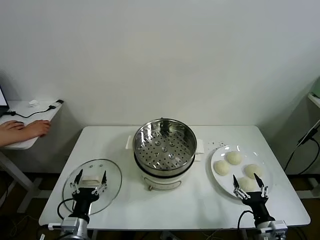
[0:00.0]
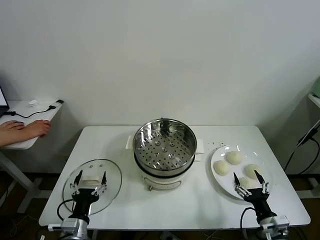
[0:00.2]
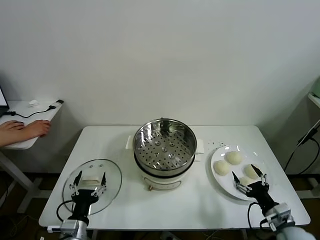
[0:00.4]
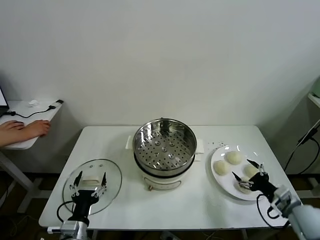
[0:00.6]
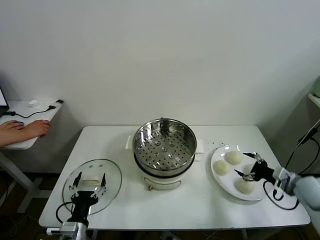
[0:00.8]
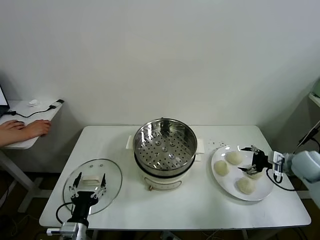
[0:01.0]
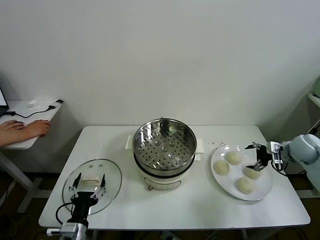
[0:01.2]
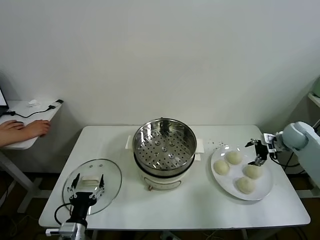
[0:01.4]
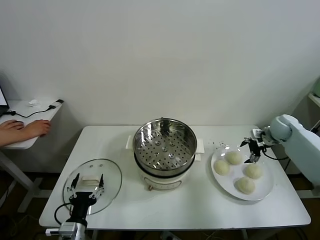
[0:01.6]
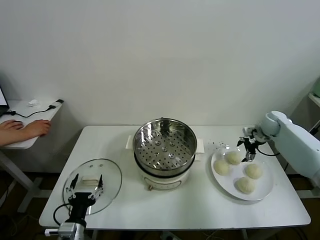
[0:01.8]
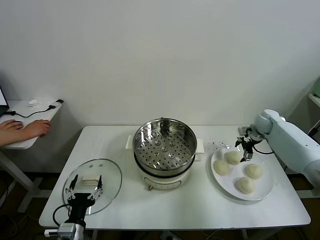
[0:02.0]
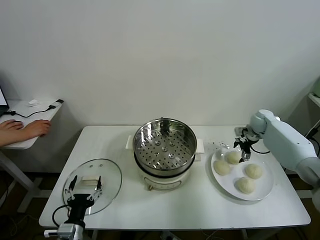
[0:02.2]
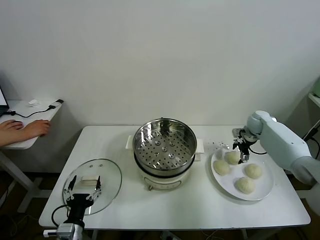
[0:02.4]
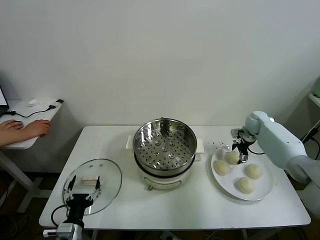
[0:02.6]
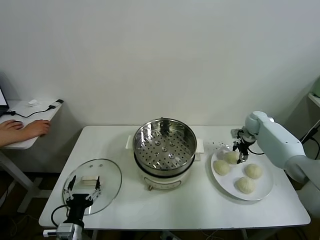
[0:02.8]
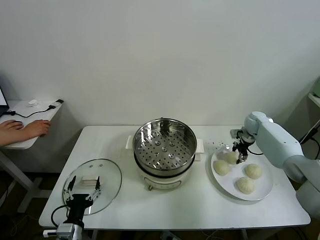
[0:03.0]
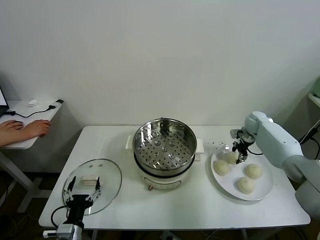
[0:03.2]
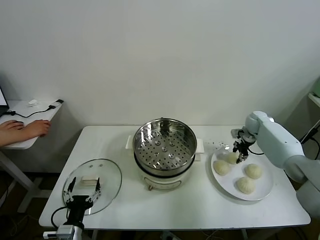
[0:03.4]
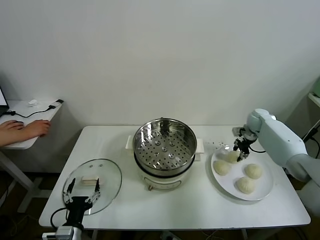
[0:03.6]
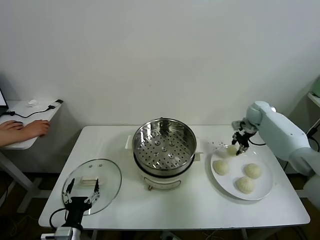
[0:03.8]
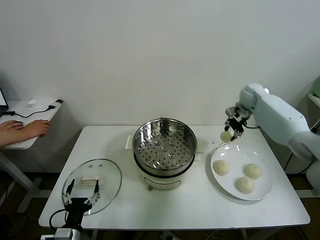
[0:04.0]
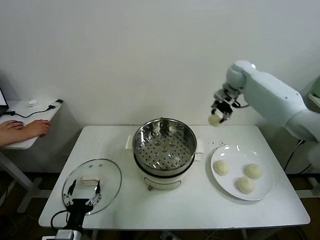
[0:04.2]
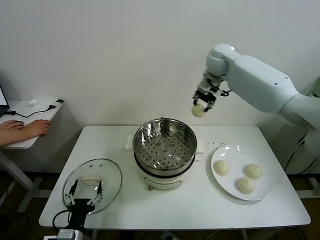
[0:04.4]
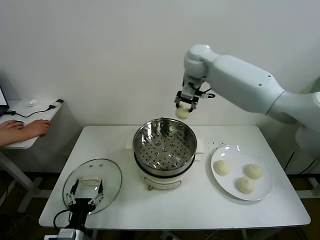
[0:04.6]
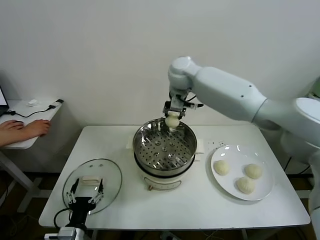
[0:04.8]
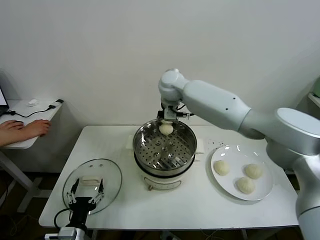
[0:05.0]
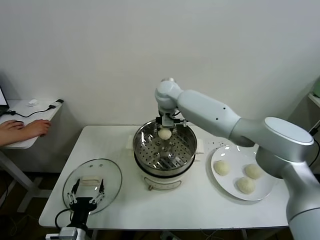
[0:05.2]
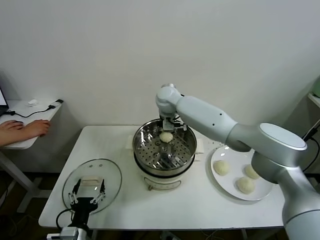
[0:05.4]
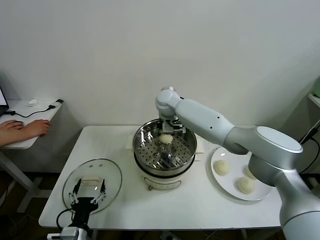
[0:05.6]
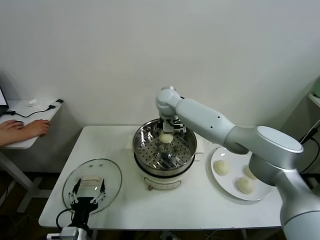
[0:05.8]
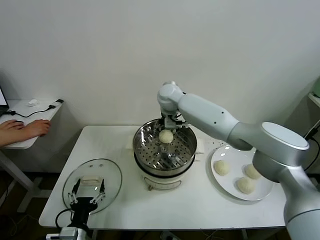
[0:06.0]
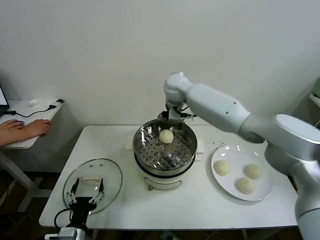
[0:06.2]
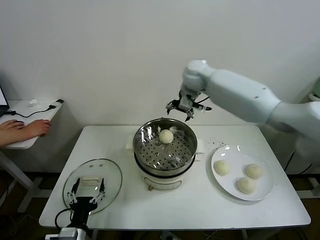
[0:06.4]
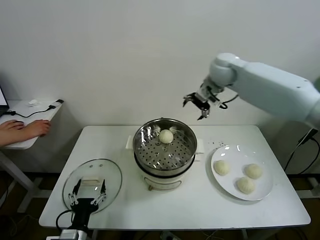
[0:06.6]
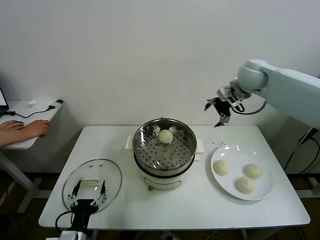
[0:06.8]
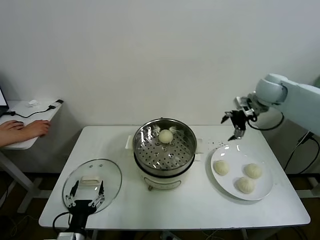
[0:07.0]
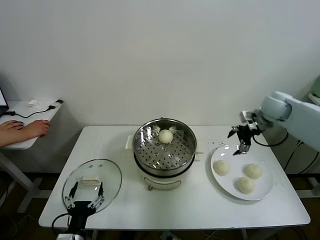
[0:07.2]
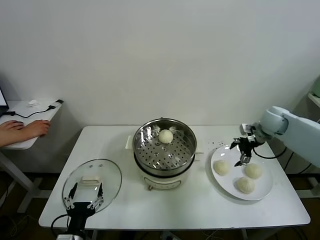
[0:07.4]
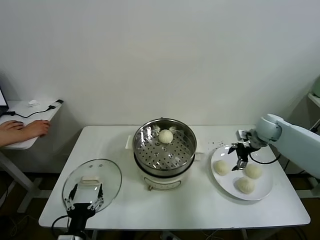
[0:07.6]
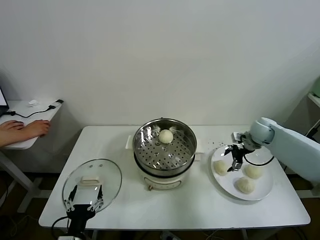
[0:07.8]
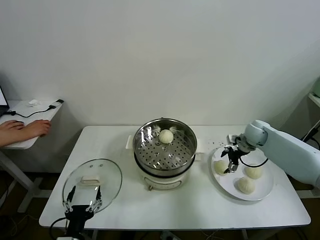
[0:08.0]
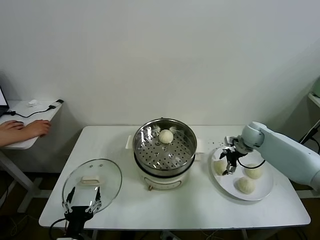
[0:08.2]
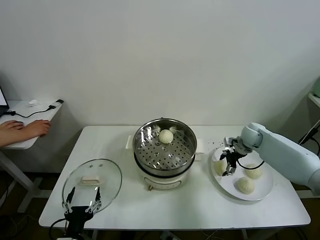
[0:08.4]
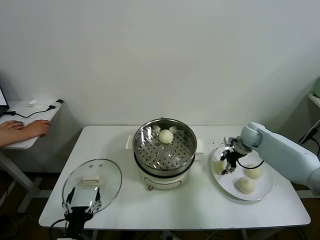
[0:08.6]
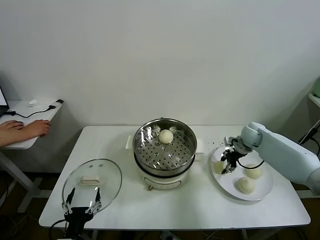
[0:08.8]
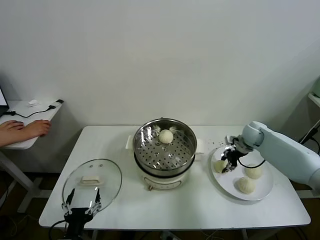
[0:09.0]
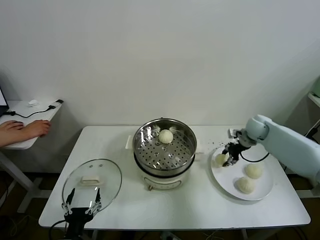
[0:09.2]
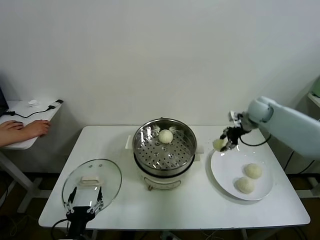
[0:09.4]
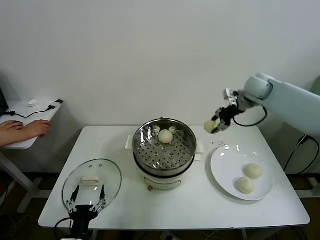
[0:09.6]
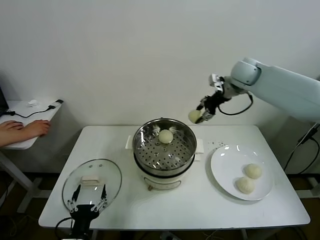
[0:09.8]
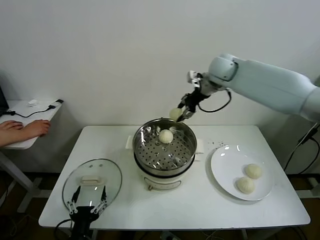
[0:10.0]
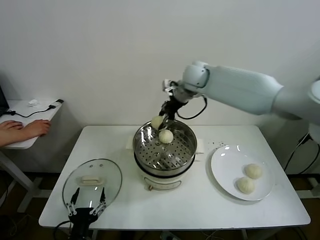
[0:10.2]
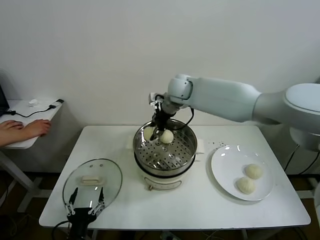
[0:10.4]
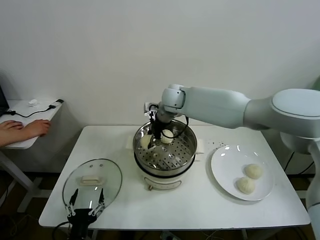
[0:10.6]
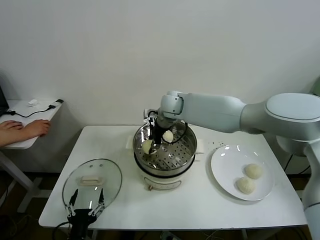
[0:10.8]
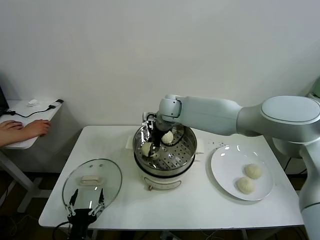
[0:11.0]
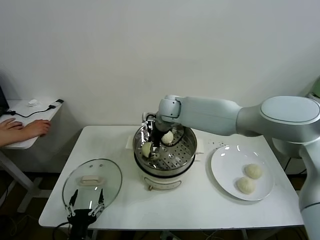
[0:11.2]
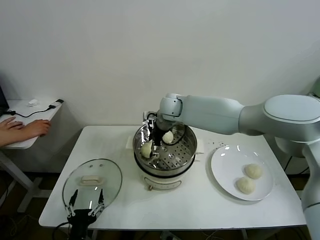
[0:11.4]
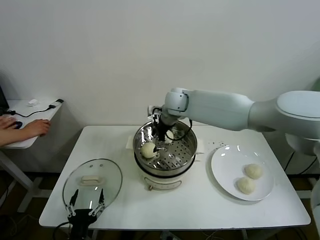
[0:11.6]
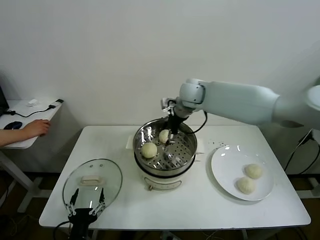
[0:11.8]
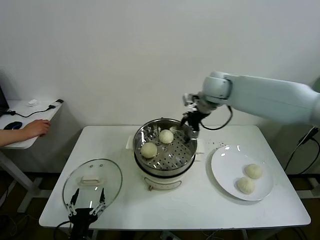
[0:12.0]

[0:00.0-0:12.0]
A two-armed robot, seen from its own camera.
Task of the whole recording: take steamed baozi put them in steamer.
Step, 0:00.0 to 0:02.8: Grasp the baozi in the plate with right gripper.
Step, 0:03.0 to 0:05.8: Place the baozi on the steamer with right gripper.
Step, 0:06.0 to 0:08.4: Grasp the baozi in the plate with right gripper.
Step, 0:08.6 to 0:11.4: Place the baozi on the steamer with right gripper.
0:01.6 to 0:03.0: The right gripper shifts roughly 5 cm forward, and closes its fingers.
0:03.0 to 0:04.4: The right gripper is displaced upward and to the left by roughly 40 cm.
0:04.4 to 0:06.0: The right gripper moves downward and to the left, some 15 cm, and opens its fingers.
0:06.0 to 0:07.6: The right gripper heads to the right, covering about 35 cm.
0:07.6 to 0:09.0: The right gripper shifts by roughly 5 cm, and closes its fingers.
0:09.0 to 0:10.4: The right gripper heads to the left and upward, covering some 35 cm.
0:10.4 to 0:12.0: The right gripper travels to the right by approximately 15 cm, and opens its fingers.

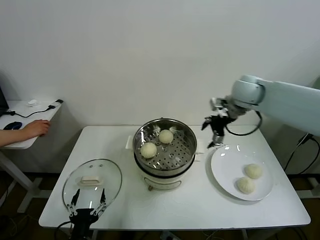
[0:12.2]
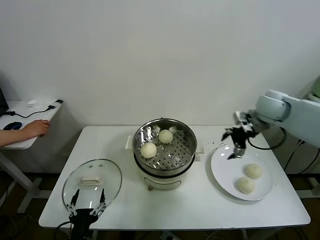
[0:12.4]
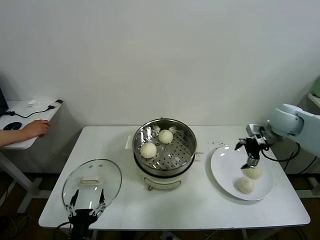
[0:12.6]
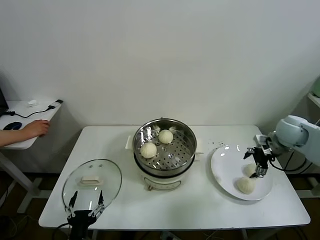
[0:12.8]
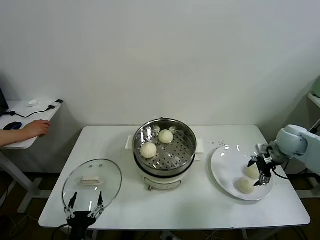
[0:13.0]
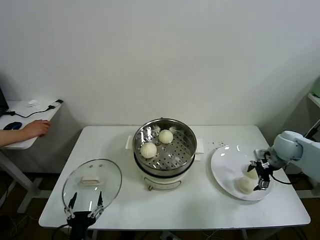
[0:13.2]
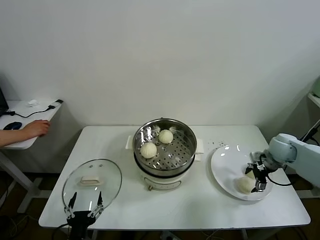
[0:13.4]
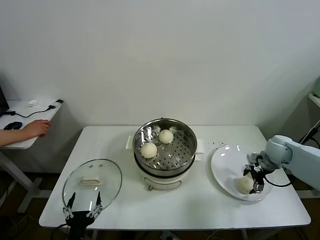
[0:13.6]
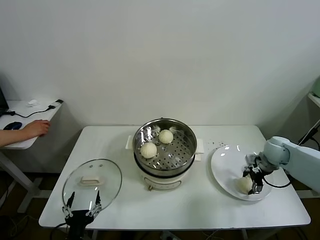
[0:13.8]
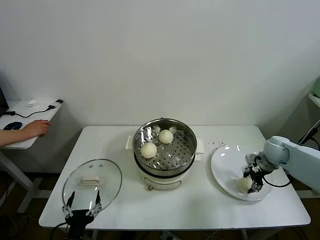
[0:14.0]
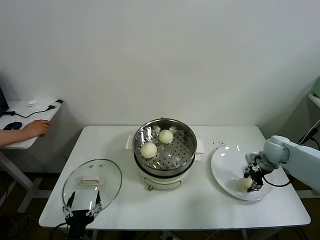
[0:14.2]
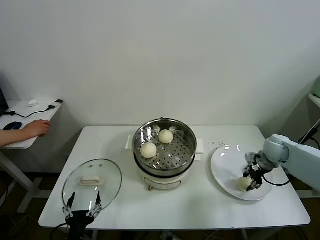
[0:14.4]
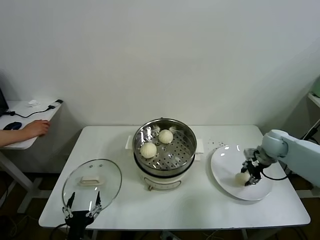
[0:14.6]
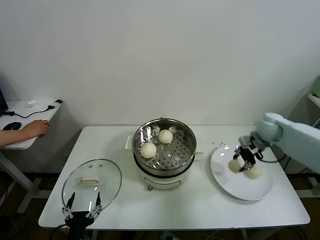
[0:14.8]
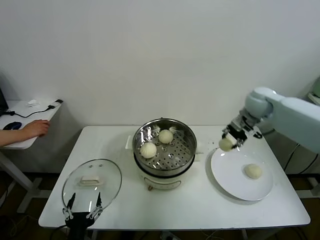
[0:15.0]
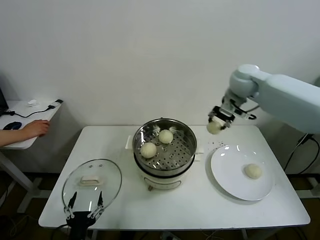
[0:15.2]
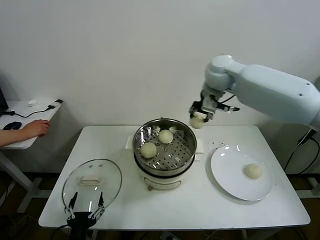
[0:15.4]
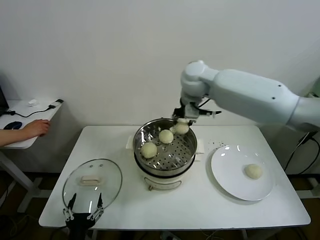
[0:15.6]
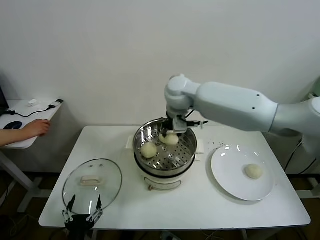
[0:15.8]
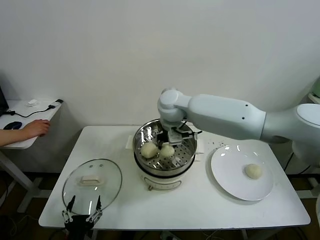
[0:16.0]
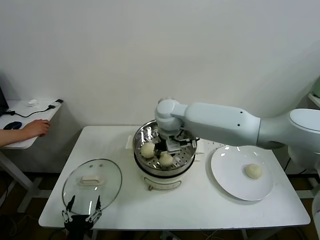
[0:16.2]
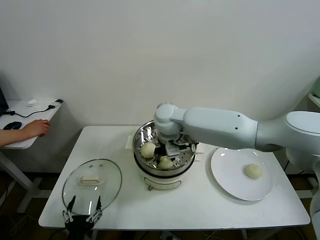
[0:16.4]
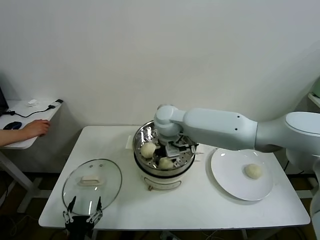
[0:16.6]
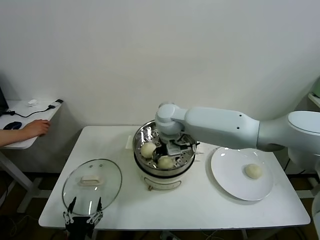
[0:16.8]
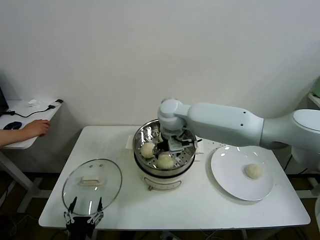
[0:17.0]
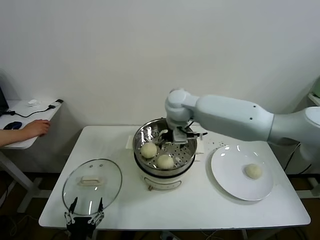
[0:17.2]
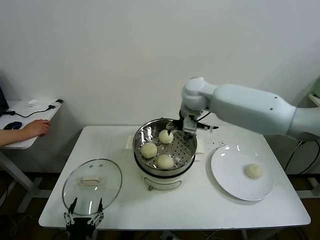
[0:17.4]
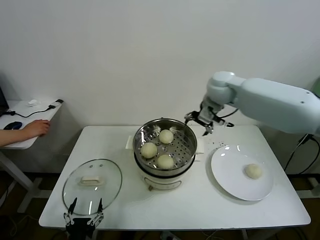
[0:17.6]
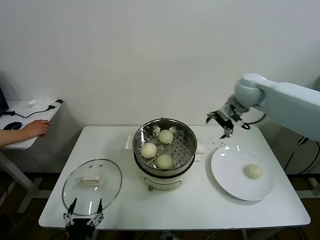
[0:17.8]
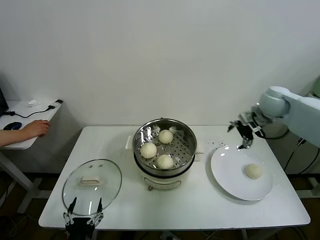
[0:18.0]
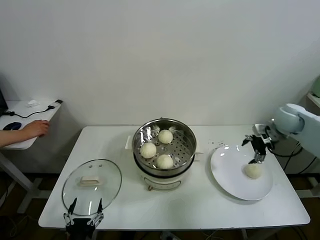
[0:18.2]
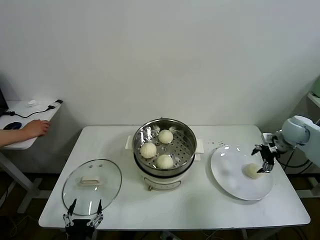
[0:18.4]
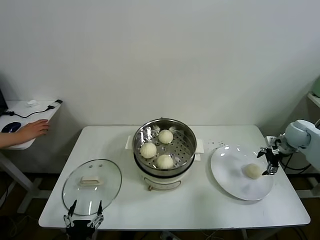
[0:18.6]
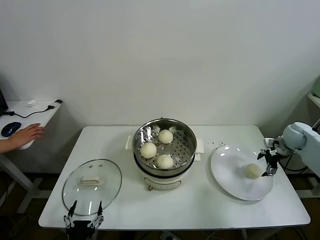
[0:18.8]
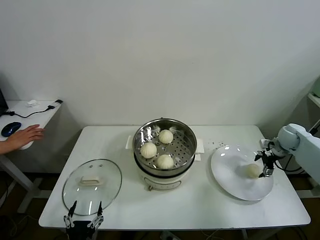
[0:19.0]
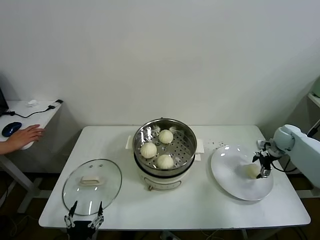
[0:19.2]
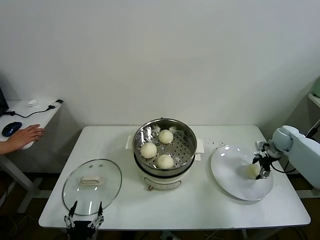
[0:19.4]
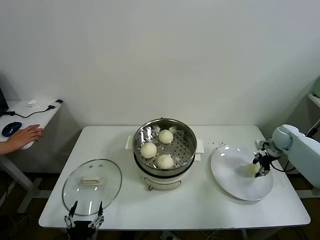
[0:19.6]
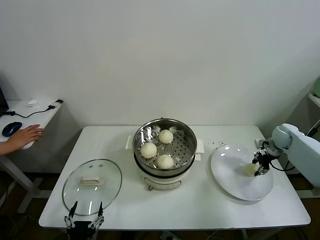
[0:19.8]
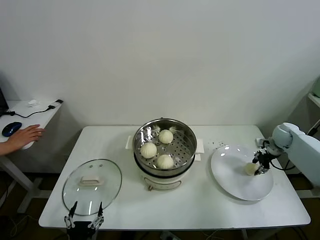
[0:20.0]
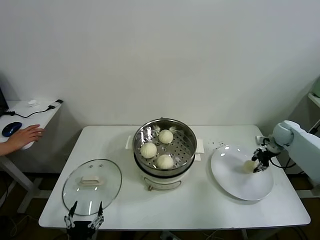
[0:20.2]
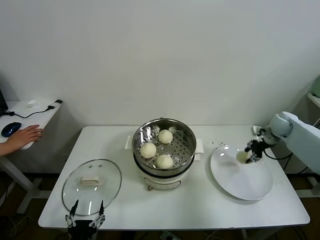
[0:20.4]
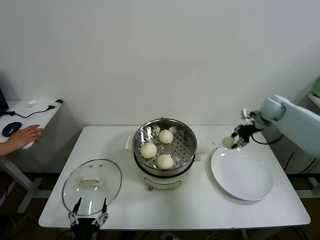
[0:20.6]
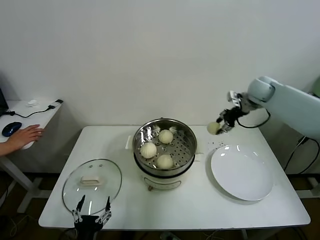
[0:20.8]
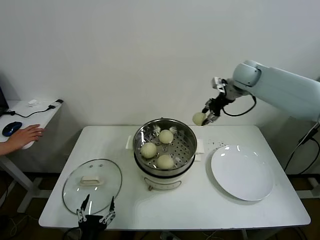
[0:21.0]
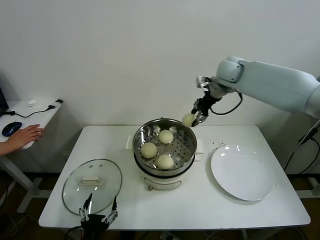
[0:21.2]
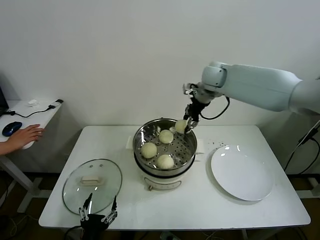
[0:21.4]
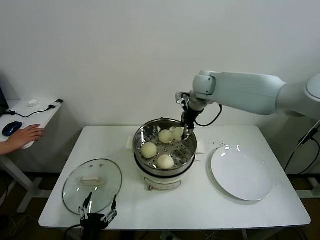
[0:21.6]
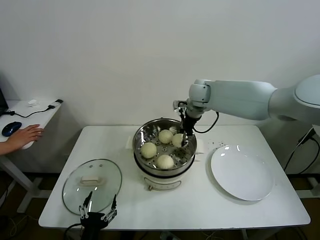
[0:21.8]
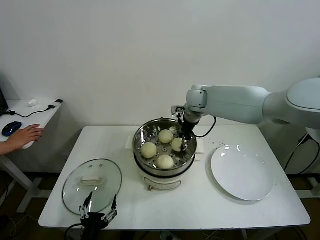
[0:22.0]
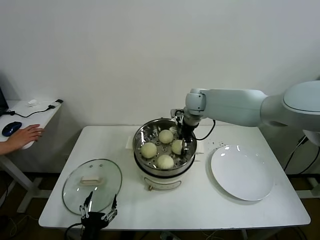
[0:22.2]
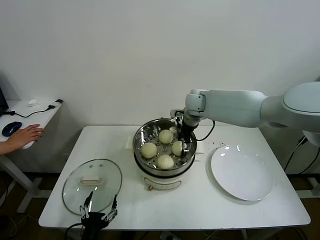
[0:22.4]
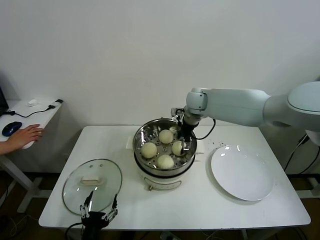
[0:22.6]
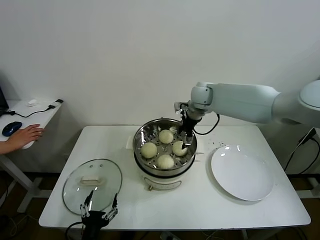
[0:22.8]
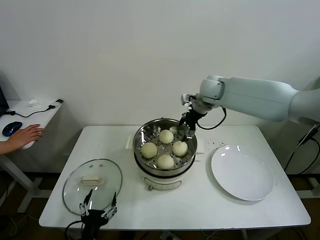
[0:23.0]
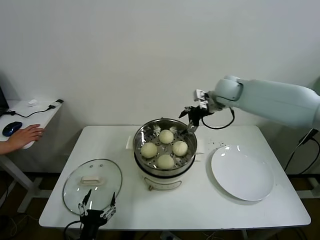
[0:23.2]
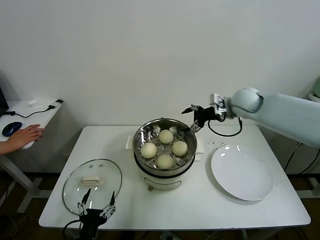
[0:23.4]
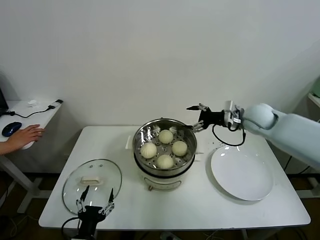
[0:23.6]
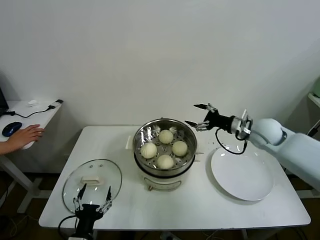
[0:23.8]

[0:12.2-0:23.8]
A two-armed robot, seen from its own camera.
Task of the whole recording: take steamed baozi put them in steamer.
Step, 0:12.2 to 0:14.0: Grasp the baozi in the plate with right gripper.
Step, 0:14.2 to 0:16.8: Place the baozi on the steamer with right gripper.
Step, 0:17.2 to 0:19.6: Grasp the baozi in the plate with right gripper.
Step, 0:19.8 to 0:22.4: Place the baozi on the steamer with right gripper.
0:12.2 to 0:13.6: The right gripper is displaced downward and to the right by approximately 25 cm.
0:13.6 to 0:15.0: The right gripper travels upward, to the left and forward by roughly 20 cm, and closes.
0:15.0 to 0:16.6: The right gripper shifts roughly 30 cm to the left.
0:16.6 to 0:18.0: The right gripper heads to the right, covering some 35 cm, and opens.
0:18.0 to 0:19.4: The right gripper travels downward and to the right by some 20 cm.
0:19.4 to 0:21.0: The right gripper is displaced upward and to the left by roughly 30 cm, and closes its fingers.
0:21.0 to 0:22.4: The right gripper heads to the left and downward, covering about 20 cm, and opens up.
0:22.4 to 0:23.8: The right gripper travels to the right and backward by approximately 25 cm.
